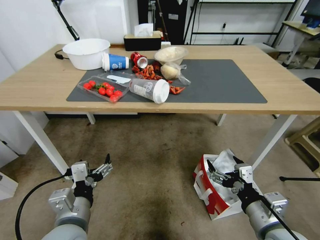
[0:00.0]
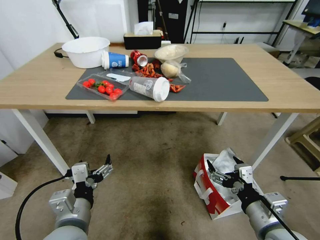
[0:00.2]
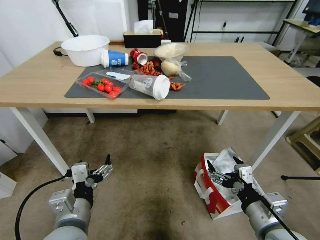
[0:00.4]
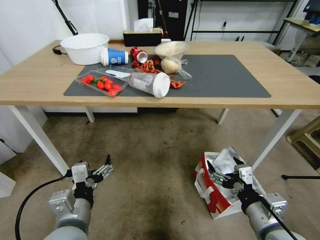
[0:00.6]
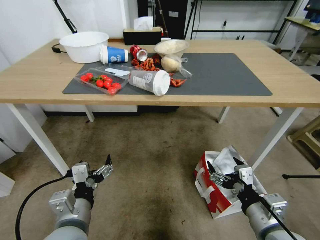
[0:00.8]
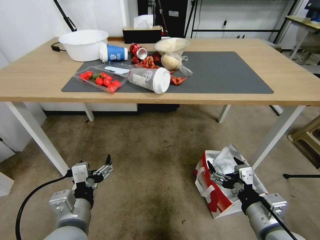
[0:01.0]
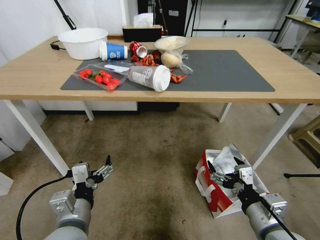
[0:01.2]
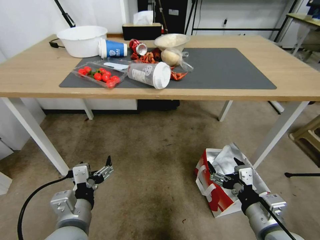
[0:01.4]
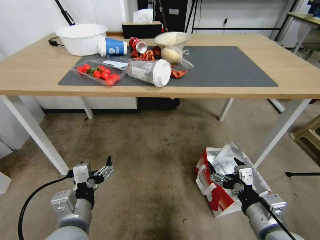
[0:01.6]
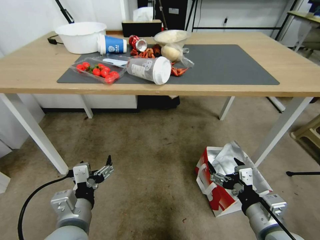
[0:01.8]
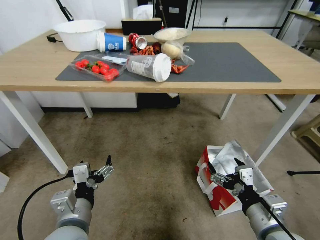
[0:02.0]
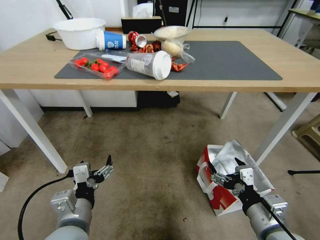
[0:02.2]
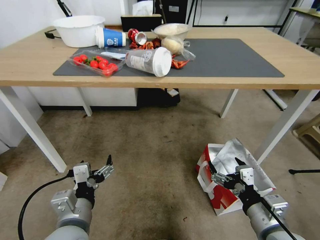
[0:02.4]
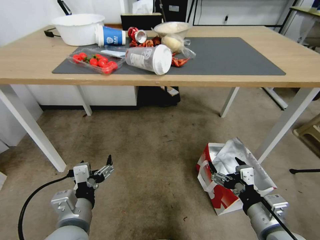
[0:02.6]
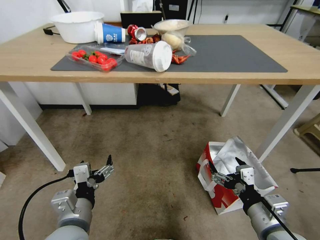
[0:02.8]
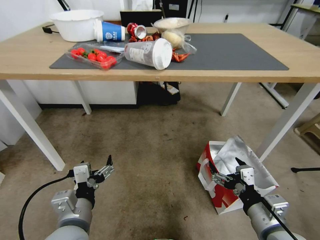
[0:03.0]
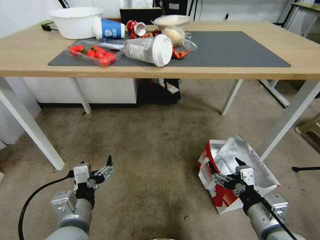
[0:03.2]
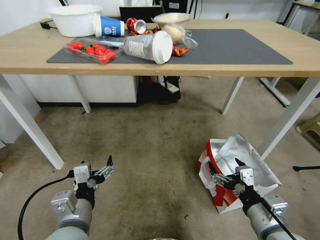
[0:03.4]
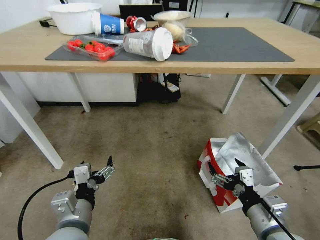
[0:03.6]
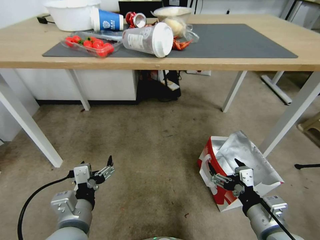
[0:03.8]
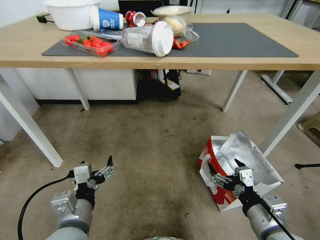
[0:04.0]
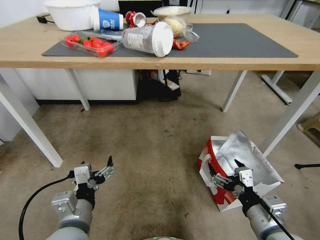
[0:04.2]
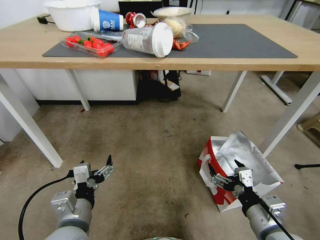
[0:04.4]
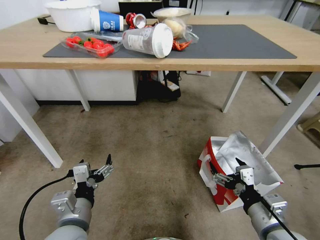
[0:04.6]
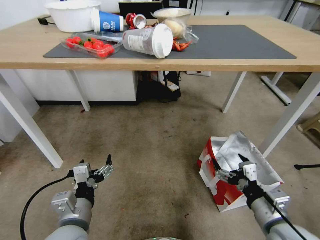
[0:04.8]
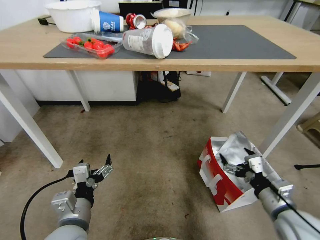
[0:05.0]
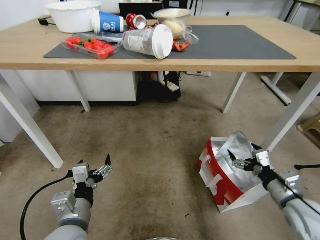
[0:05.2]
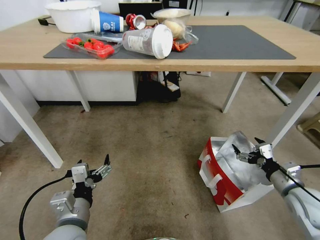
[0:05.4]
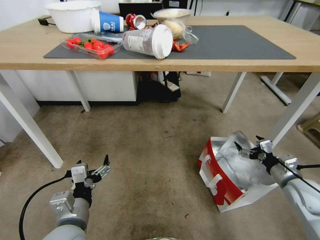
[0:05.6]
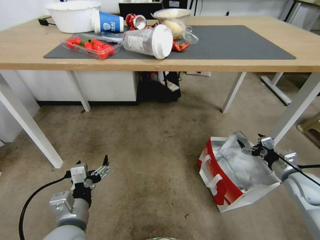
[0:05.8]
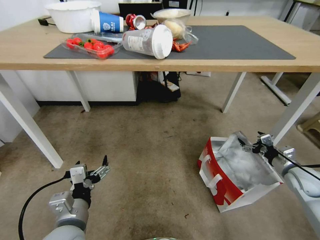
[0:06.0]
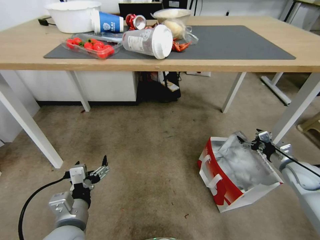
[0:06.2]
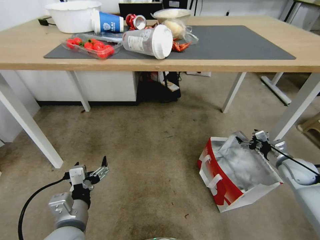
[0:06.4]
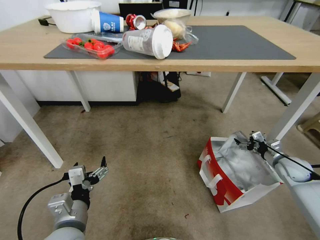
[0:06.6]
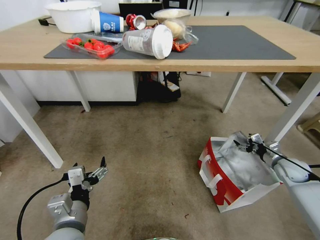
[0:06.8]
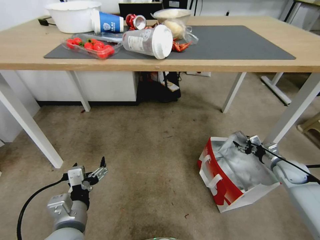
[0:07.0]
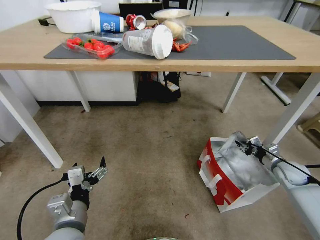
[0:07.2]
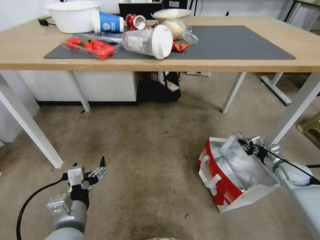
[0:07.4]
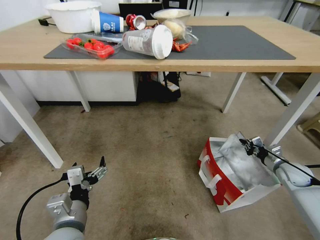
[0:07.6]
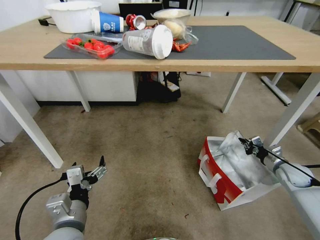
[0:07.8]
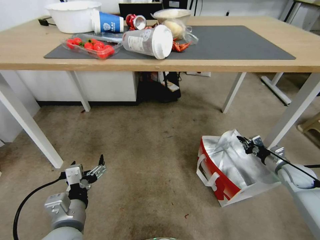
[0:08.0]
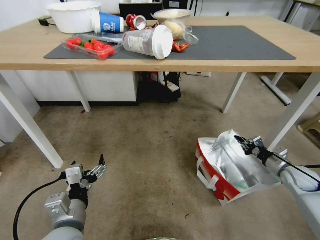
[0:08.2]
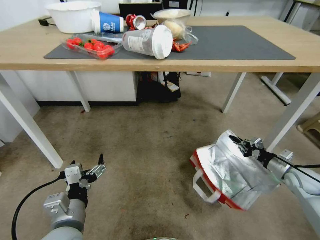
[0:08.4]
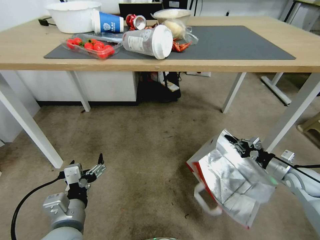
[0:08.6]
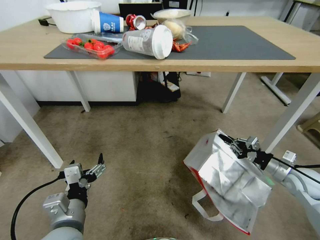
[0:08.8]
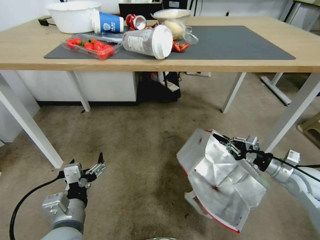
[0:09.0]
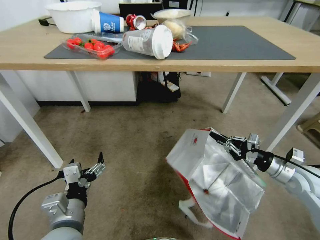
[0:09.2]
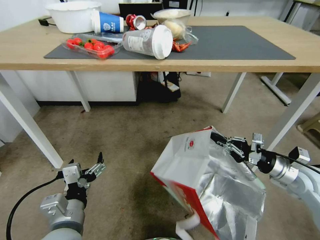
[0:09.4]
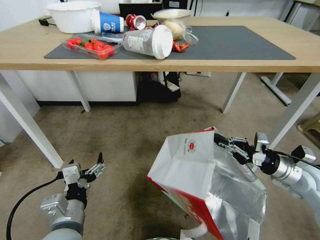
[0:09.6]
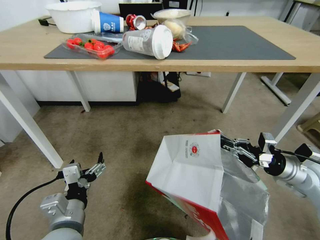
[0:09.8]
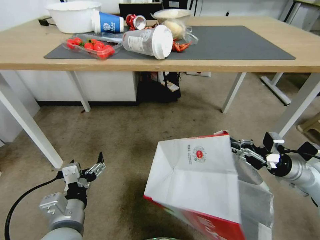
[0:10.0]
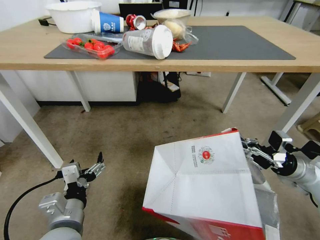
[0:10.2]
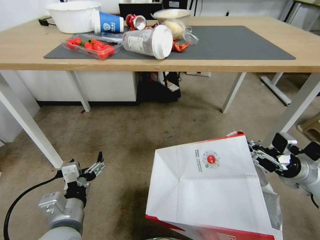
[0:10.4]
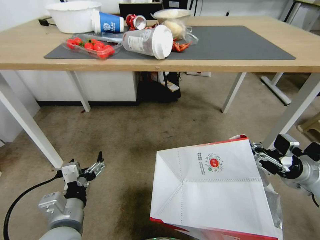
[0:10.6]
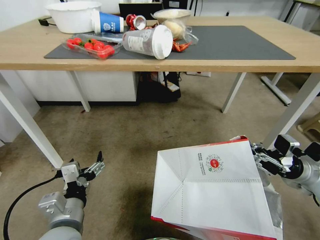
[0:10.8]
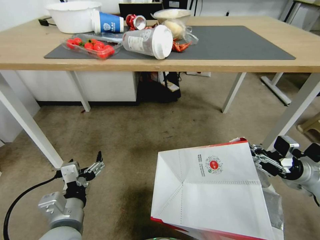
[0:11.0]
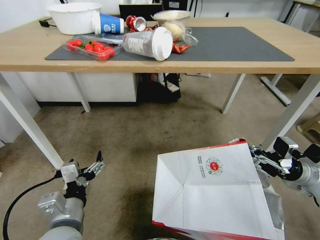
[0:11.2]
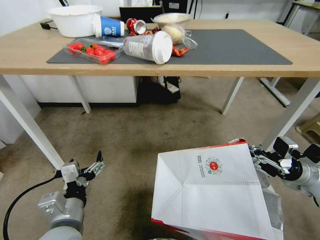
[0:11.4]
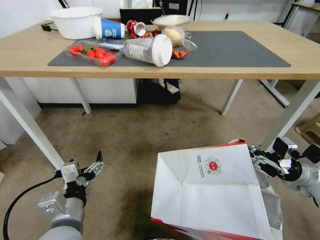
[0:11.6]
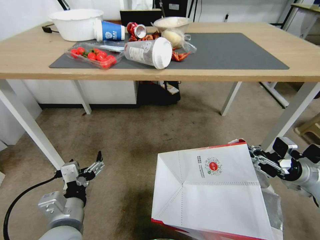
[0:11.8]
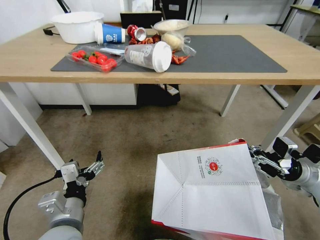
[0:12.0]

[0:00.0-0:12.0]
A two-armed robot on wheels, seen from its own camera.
Task of the whole recording: Pick up the food delivery bag from the floor and place it on the table.
0:04.4 to 0:06.0: The right gripper heads to the right and forward, covering approximately 25 cm.
0:06.0 to 0:07.6: The right gripper is displaced forward and downward by about 10 cm, and closes.
0:07.6 to 0:09.0: The right gripper moves upward, backward and to the left, roughly 10 cm.

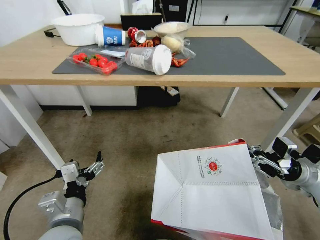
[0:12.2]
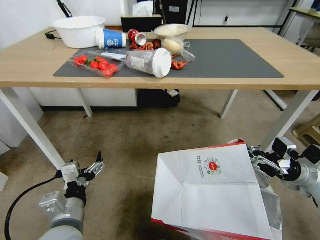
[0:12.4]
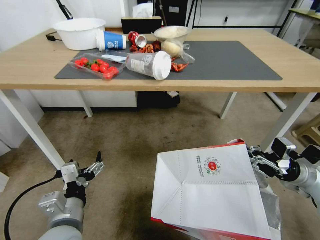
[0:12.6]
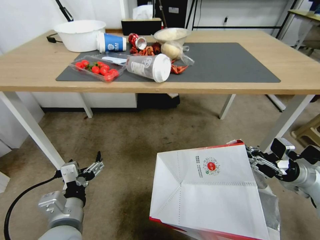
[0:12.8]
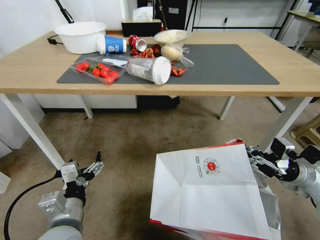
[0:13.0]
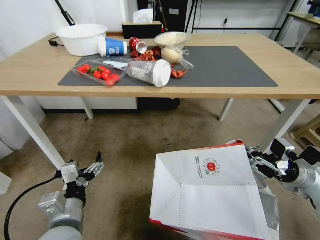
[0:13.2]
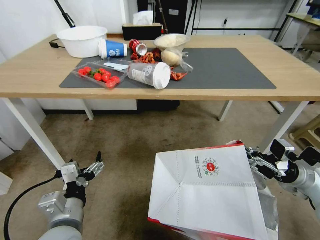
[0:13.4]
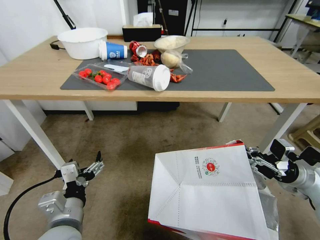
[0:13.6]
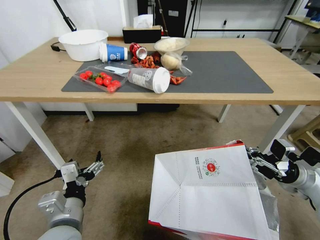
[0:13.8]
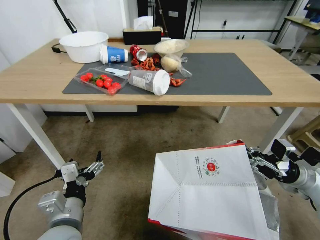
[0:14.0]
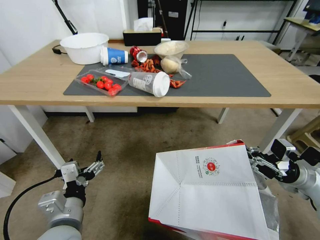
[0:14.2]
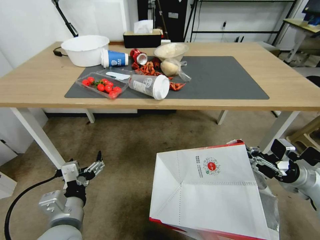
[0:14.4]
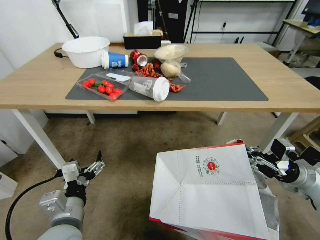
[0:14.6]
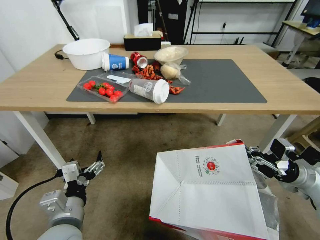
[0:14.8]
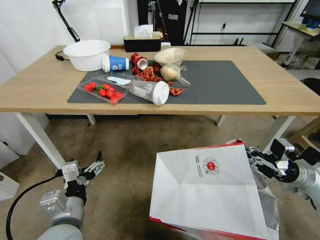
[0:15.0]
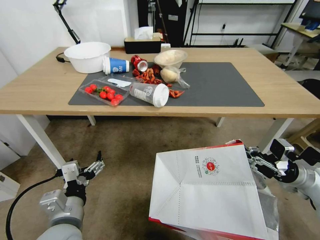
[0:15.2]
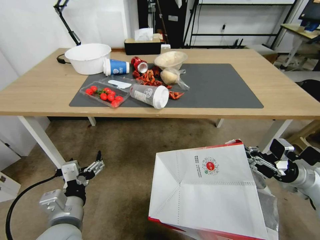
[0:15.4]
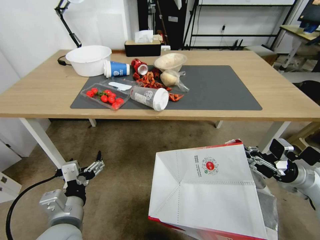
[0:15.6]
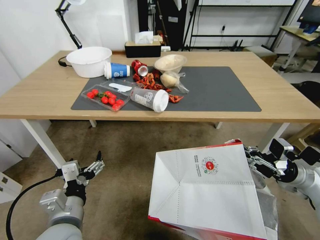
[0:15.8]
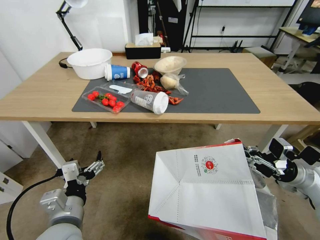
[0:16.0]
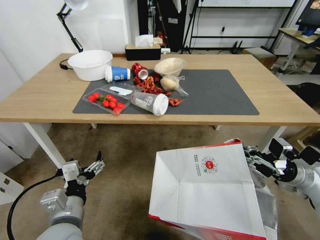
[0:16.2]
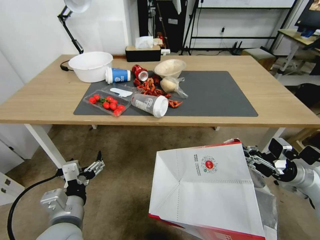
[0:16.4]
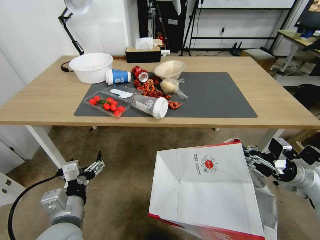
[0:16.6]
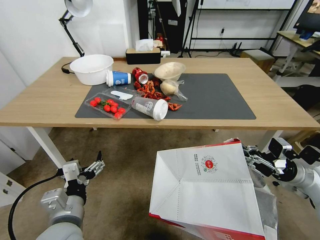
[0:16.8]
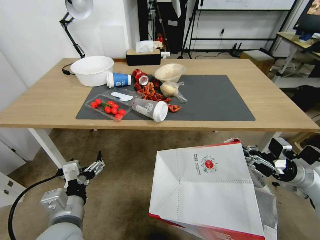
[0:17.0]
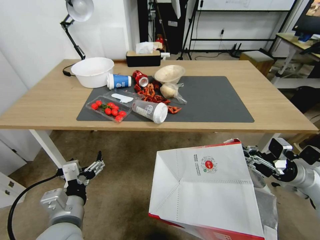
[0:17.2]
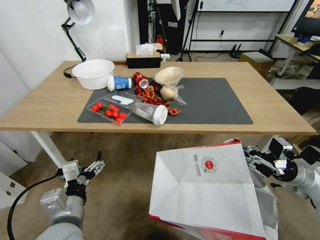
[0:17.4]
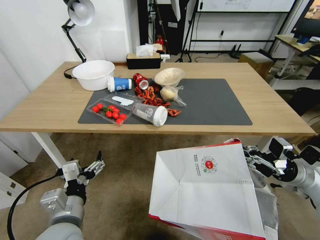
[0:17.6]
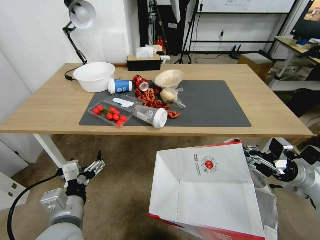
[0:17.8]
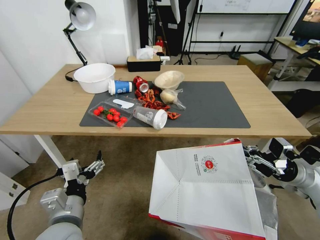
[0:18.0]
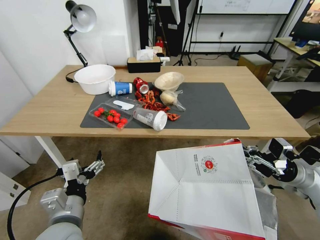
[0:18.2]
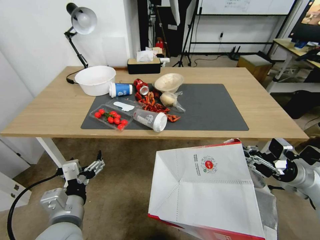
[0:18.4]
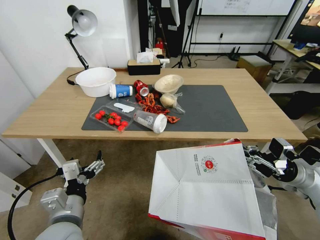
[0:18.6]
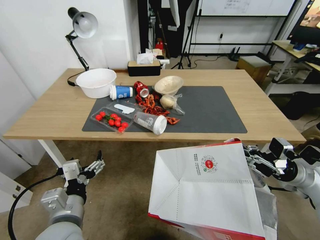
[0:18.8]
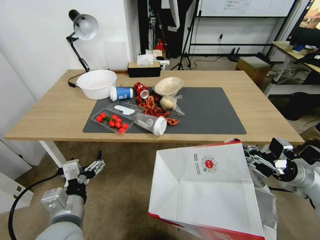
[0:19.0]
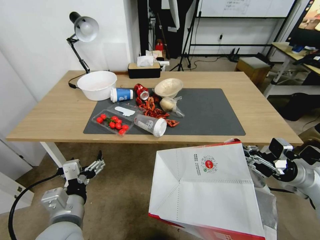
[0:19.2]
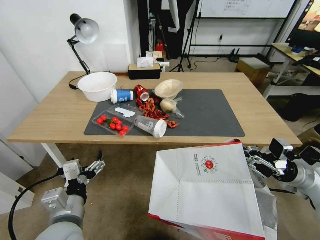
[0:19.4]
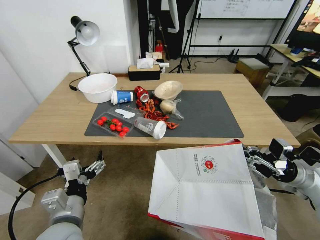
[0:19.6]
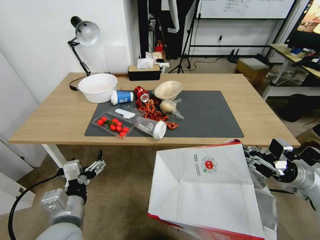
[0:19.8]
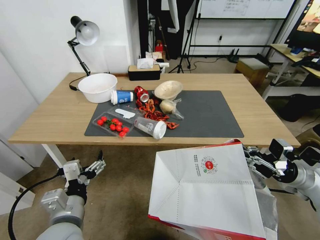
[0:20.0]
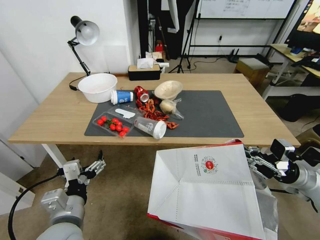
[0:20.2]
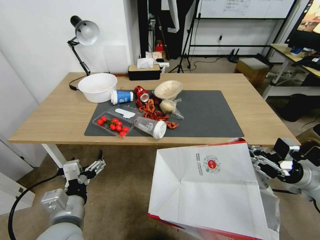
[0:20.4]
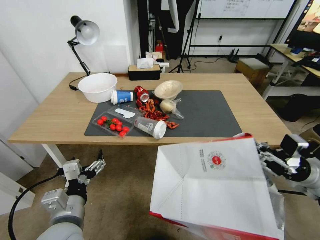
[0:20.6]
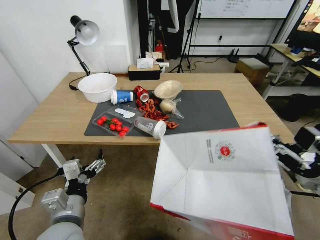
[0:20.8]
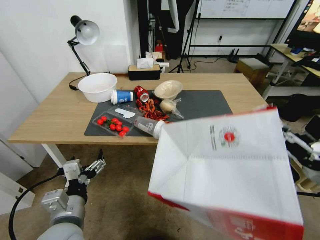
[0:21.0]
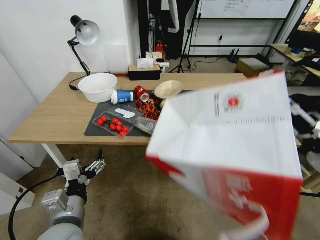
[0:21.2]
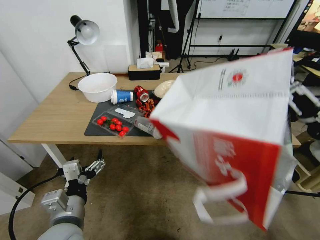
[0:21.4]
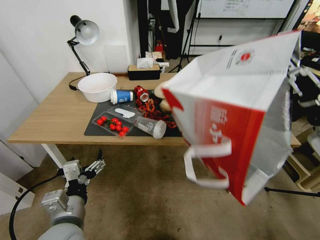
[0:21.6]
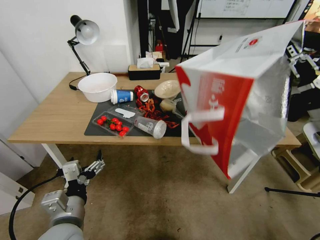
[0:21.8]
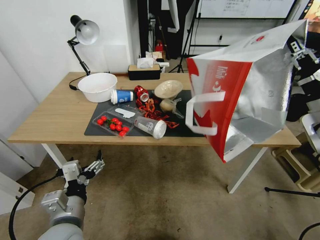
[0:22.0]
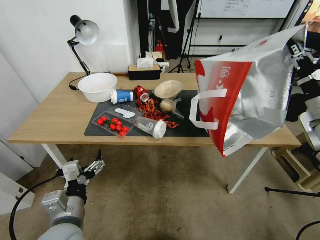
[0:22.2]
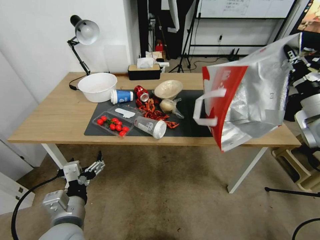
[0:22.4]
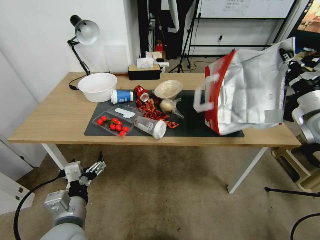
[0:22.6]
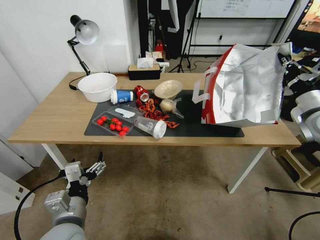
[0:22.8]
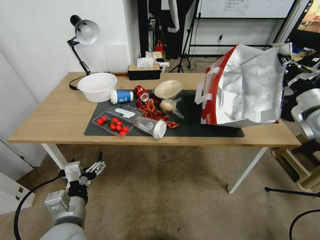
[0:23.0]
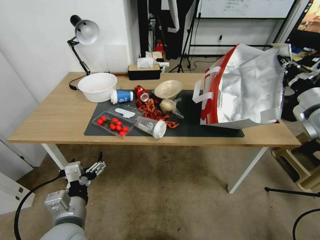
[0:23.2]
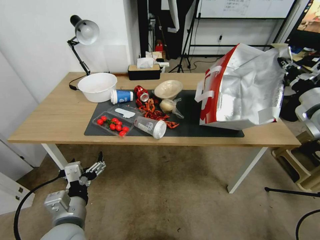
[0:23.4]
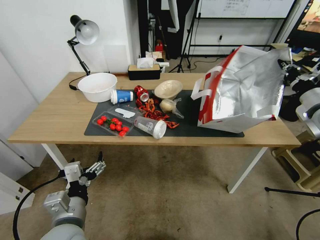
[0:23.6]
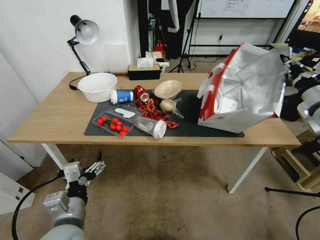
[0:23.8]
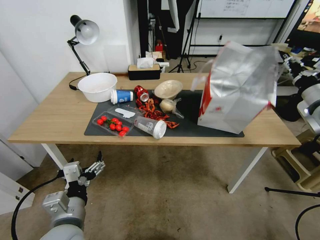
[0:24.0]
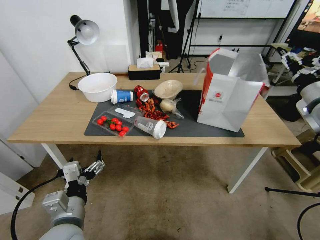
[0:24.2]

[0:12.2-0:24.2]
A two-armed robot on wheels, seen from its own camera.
Task of the whole recording: Pick up the food delivery bag from the floor and place it on the table.
0:21.2 to 0:22.6: The right gripper shifts some 15 cm upward and forward.
0:22.6 to 0:24.2: The right gripper opens its fingers.
